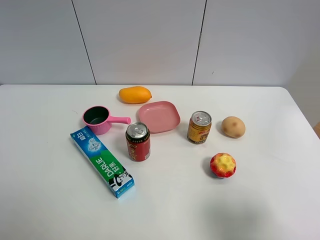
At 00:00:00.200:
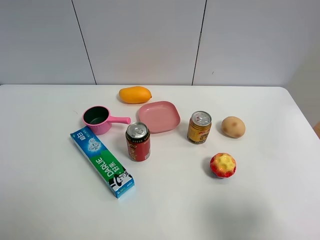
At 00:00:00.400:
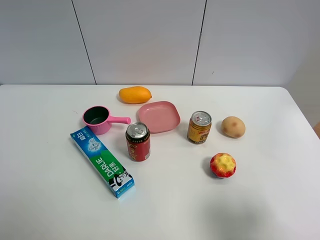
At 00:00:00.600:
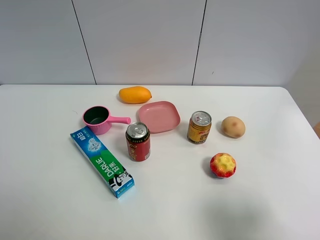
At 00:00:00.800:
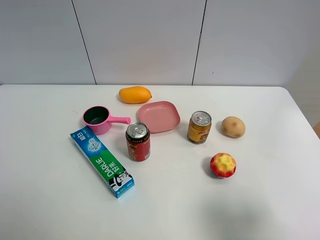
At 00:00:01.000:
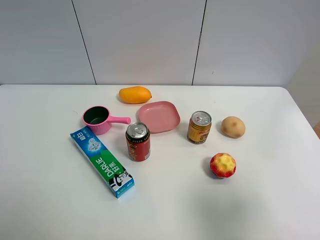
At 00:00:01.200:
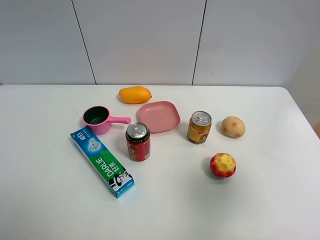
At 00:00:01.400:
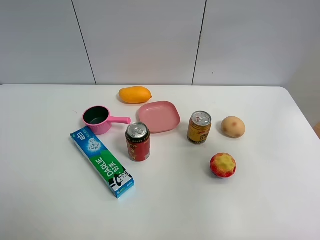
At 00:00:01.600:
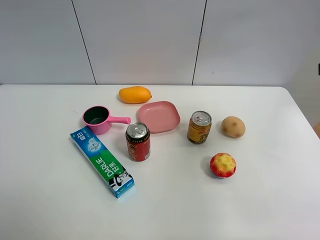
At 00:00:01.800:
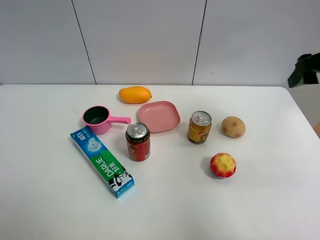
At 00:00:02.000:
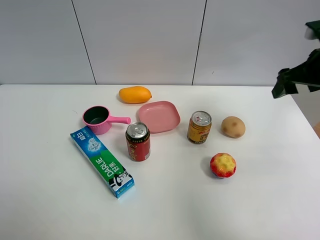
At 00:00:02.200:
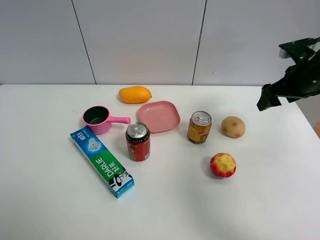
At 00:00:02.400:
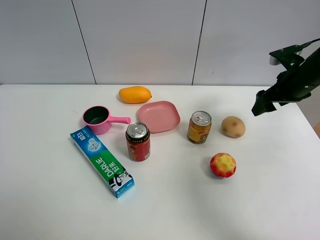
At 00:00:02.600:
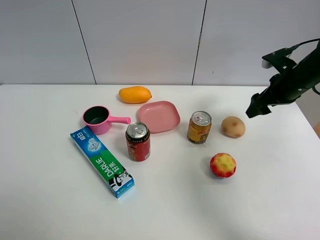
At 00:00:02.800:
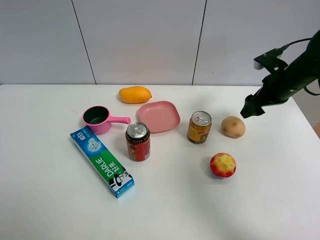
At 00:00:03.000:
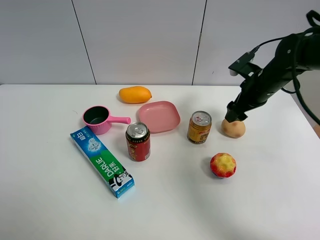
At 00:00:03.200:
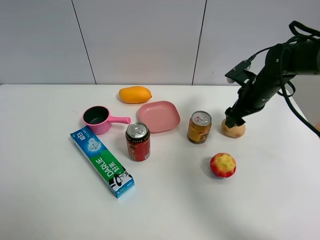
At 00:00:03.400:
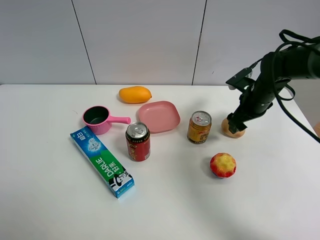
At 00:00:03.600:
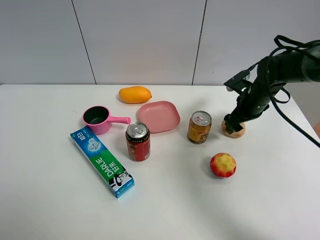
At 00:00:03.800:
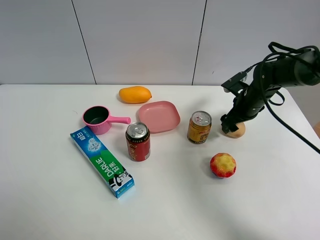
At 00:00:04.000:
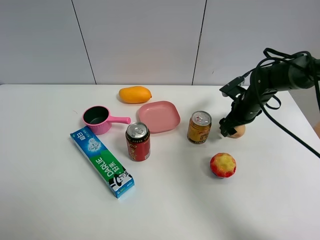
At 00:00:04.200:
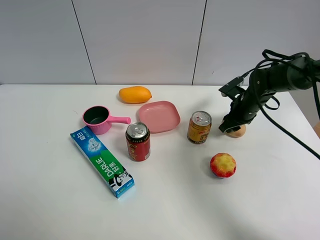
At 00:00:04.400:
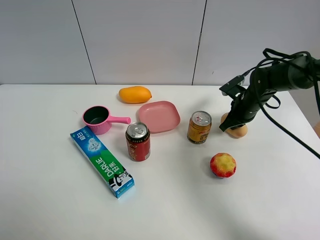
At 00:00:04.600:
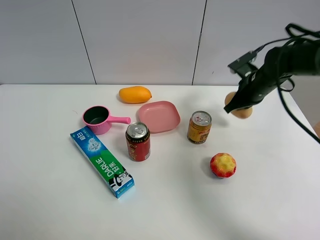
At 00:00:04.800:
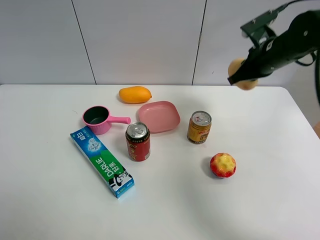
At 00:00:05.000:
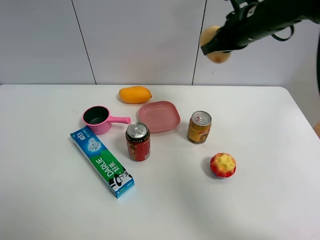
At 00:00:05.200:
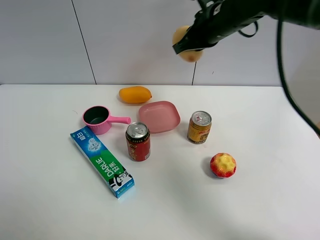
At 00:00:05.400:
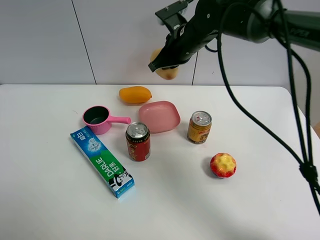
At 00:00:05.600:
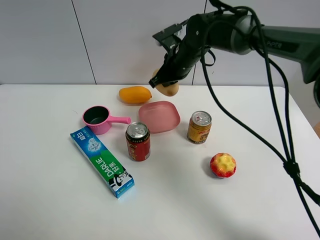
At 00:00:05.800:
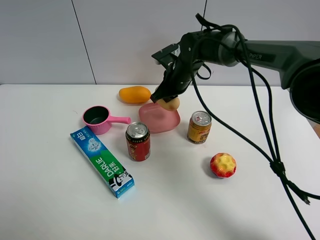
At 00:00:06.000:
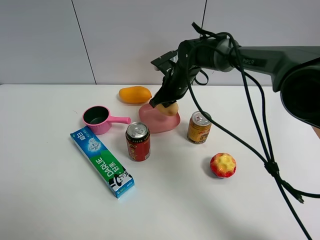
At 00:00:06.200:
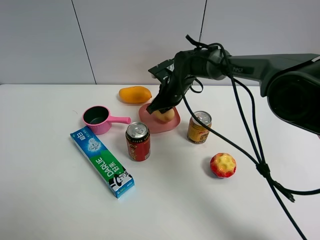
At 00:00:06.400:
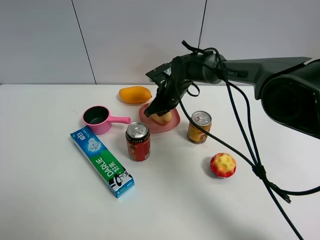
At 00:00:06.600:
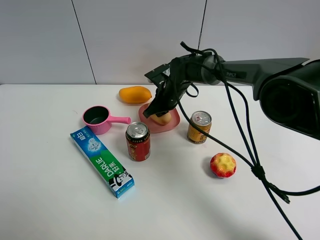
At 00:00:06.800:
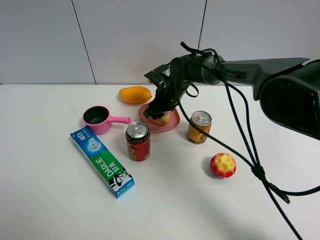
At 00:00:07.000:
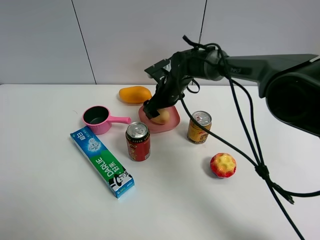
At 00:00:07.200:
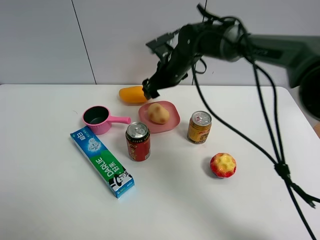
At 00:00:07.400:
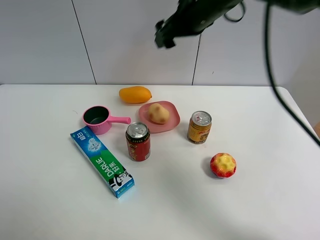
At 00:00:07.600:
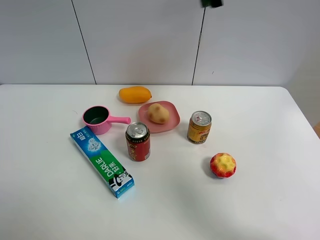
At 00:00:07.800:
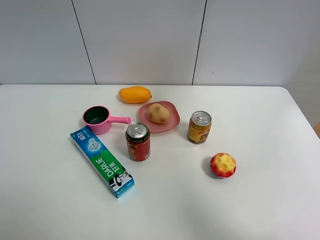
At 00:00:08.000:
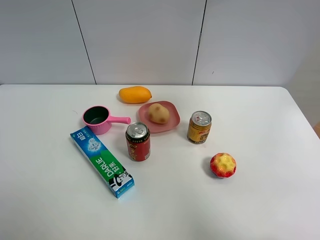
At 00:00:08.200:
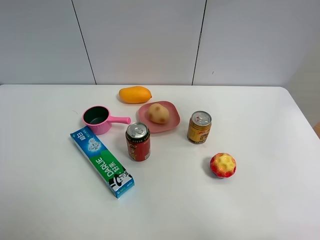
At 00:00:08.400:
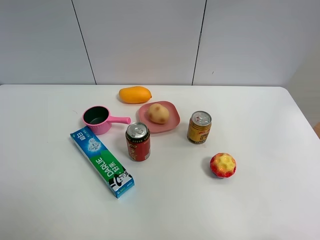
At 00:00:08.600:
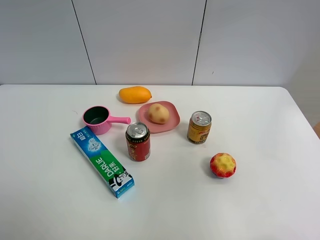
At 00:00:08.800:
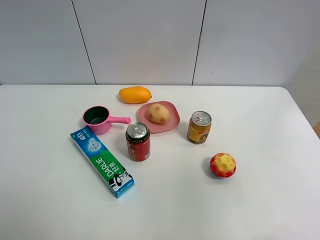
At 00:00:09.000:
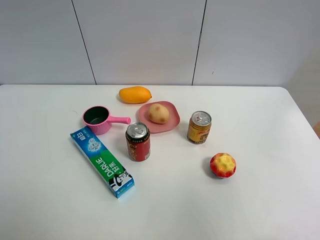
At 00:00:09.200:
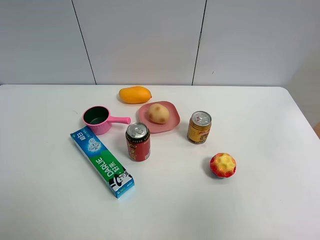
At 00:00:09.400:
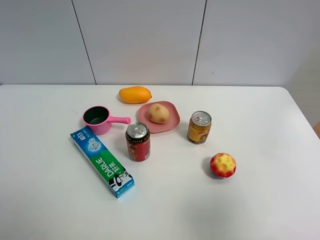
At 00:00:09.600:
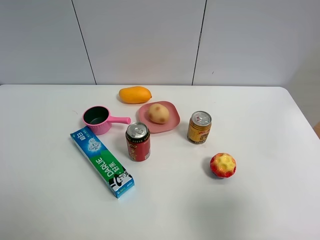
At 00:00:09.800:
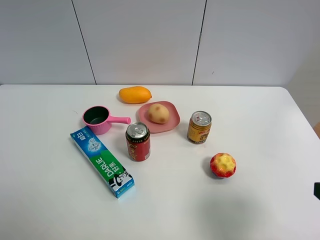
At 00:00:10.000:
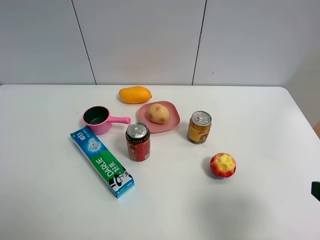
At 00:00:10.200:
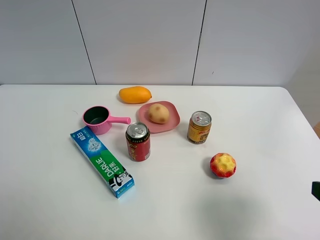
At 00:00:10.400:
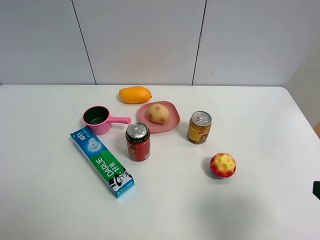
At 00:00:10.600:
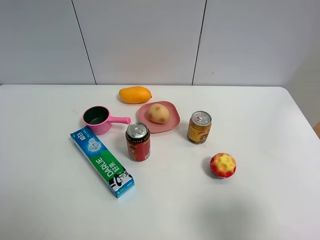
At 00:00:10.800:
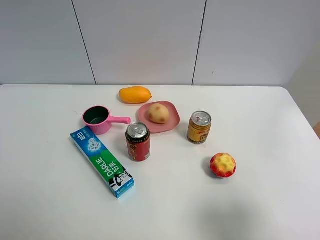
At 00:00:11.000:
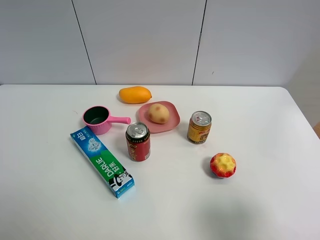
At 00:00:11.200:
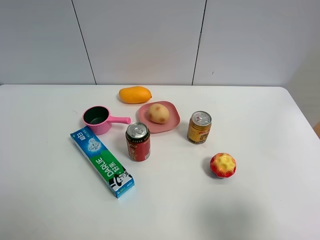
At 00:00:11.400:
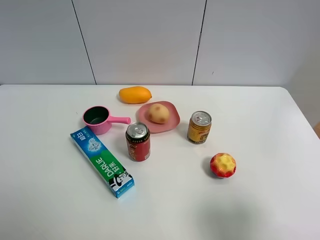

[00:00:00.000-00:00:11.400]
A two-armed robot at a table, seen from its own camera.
Task of the whole recording: the gripper move the object.
Step, 00:00:00.000 to 00:00:04.200: Grasp the egg yolk pastry with the right gripper.
Step, 00:00:04.400 to 00:00:07.000: Place the egg yolk pastry into the pink plate with the right gripper.
00:00:00.000 to 00:00:01.400: The right gripper goes roughly 20 cm forward and upward.
00:00:01.400 to 00:00:02.800: The right gripper moves forward and downward, roughly 30 cm.
00:00:02.800 to 00:00:04.200: The right gripper moves downward, about 10 cm, and closes up.
00:00:04.200 to 00:00:05.600: The right gripper shifts about 20 cm to the left and upward, and closes.
00:00:05.600 to 00:00:07.200: The right gripper goes downward and returns, about 10 cm each way, and opens.
00:00:07.200 to 00:00:08.600: The right gripper is displaced backward, upward and to the right by approximately 60 cm.
00:00:08.600 to 00:00:10.000: The right gripper goes roughly 25 cm downward.

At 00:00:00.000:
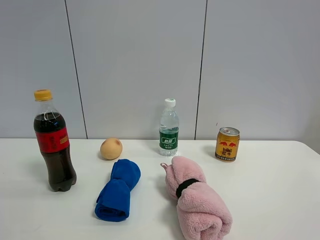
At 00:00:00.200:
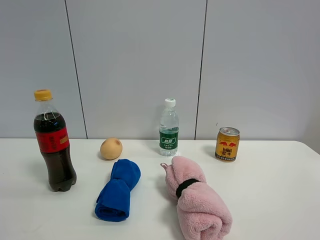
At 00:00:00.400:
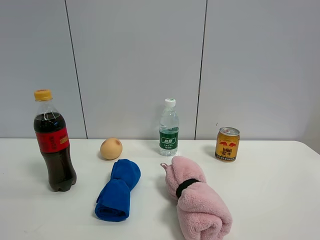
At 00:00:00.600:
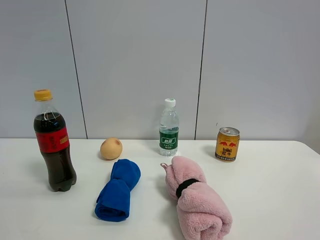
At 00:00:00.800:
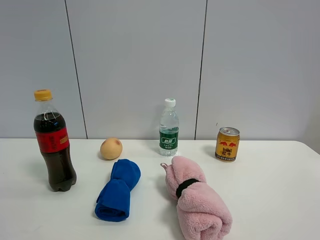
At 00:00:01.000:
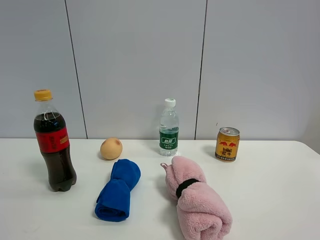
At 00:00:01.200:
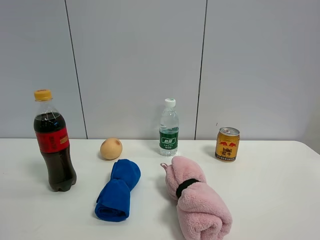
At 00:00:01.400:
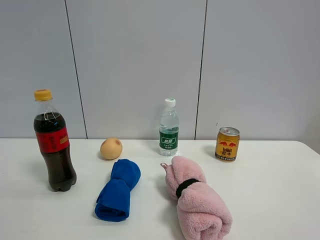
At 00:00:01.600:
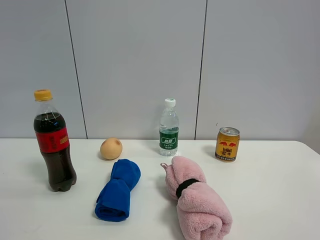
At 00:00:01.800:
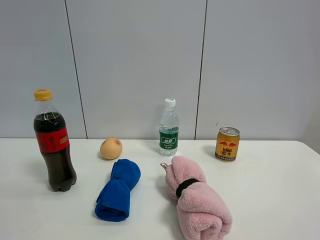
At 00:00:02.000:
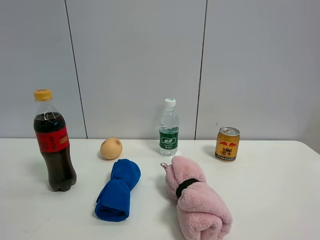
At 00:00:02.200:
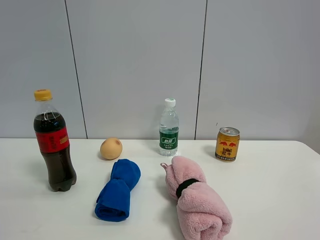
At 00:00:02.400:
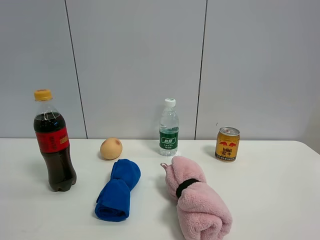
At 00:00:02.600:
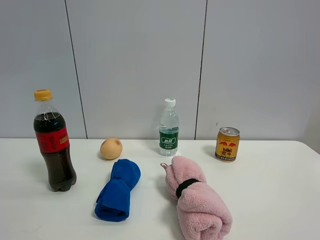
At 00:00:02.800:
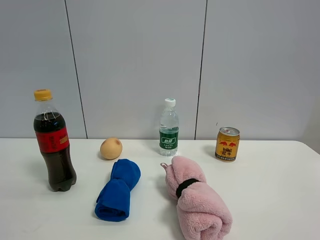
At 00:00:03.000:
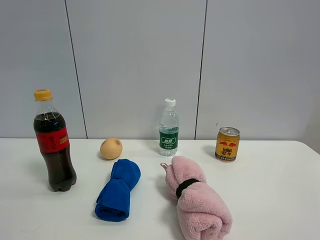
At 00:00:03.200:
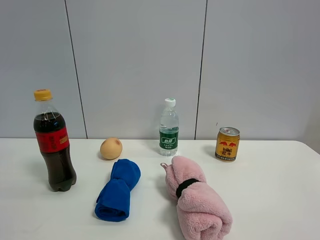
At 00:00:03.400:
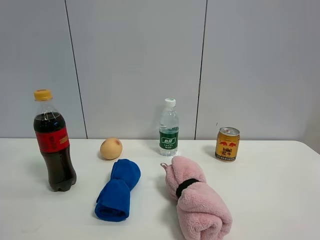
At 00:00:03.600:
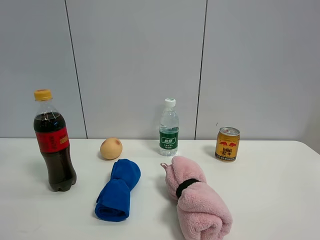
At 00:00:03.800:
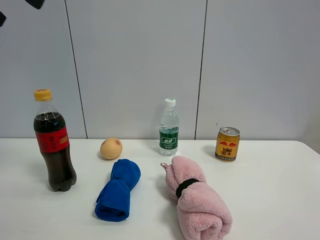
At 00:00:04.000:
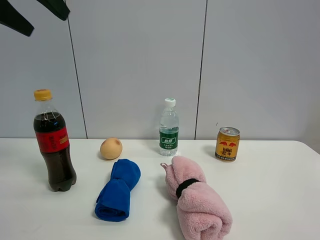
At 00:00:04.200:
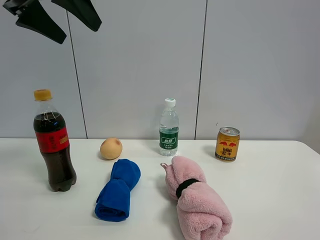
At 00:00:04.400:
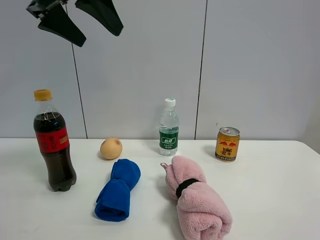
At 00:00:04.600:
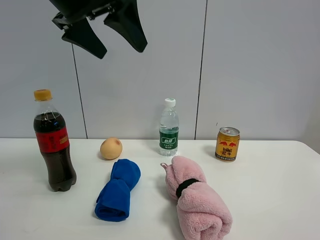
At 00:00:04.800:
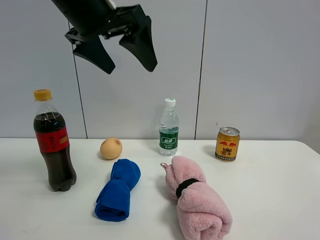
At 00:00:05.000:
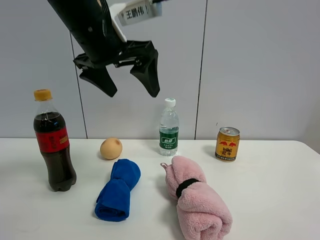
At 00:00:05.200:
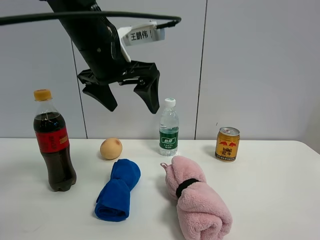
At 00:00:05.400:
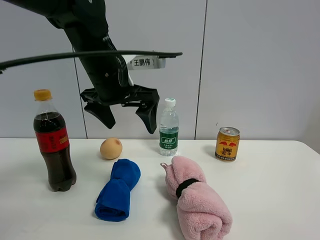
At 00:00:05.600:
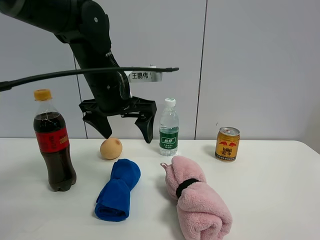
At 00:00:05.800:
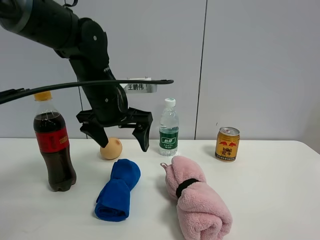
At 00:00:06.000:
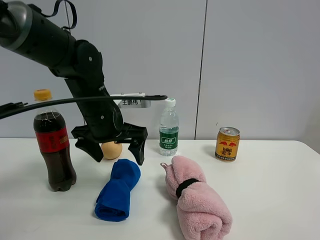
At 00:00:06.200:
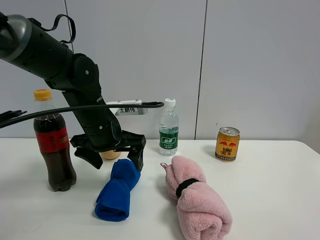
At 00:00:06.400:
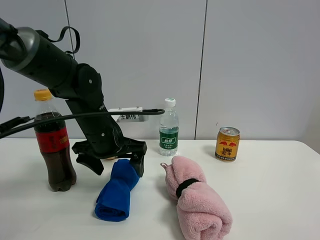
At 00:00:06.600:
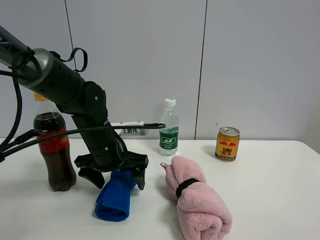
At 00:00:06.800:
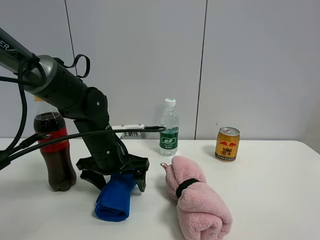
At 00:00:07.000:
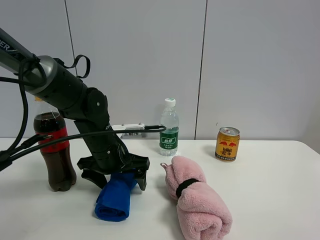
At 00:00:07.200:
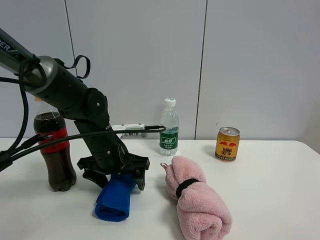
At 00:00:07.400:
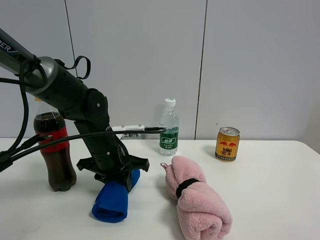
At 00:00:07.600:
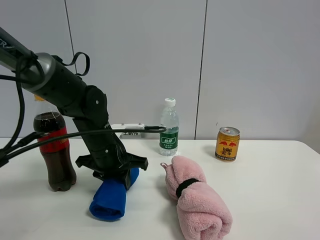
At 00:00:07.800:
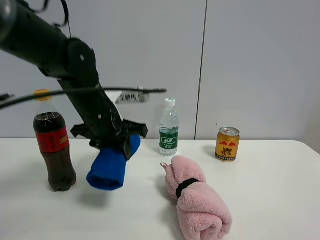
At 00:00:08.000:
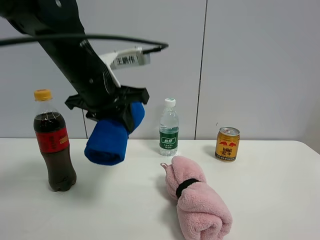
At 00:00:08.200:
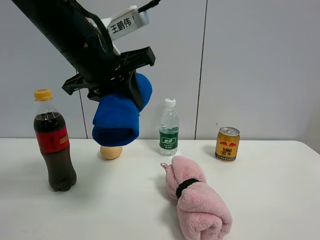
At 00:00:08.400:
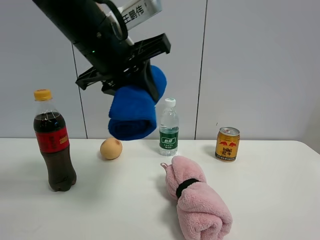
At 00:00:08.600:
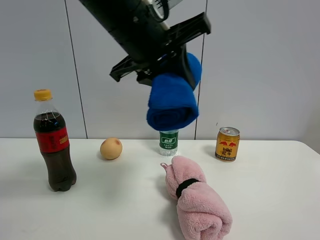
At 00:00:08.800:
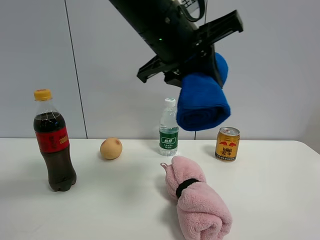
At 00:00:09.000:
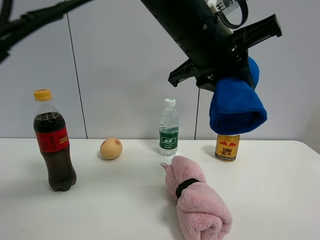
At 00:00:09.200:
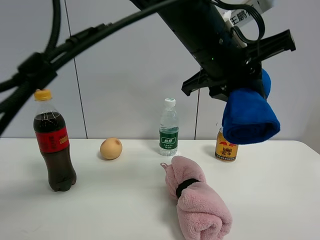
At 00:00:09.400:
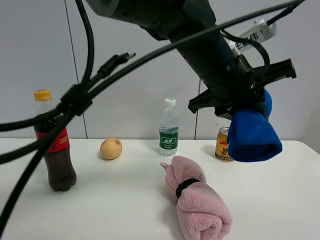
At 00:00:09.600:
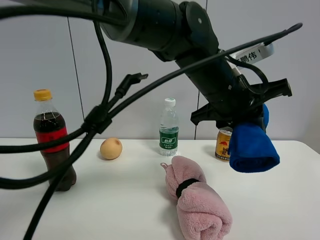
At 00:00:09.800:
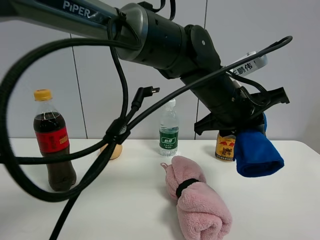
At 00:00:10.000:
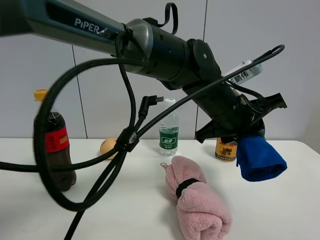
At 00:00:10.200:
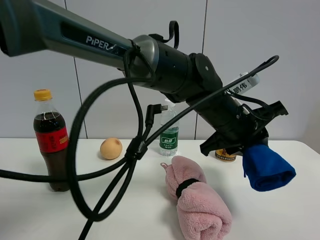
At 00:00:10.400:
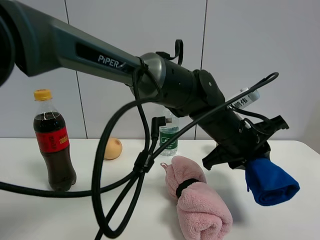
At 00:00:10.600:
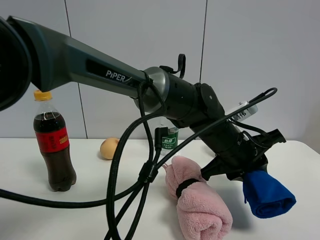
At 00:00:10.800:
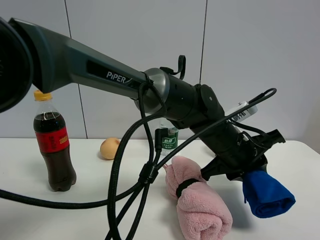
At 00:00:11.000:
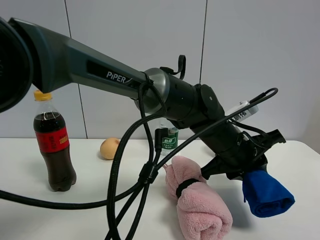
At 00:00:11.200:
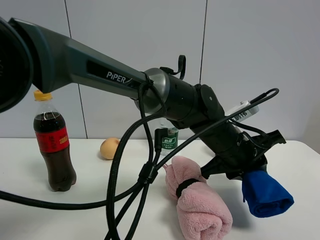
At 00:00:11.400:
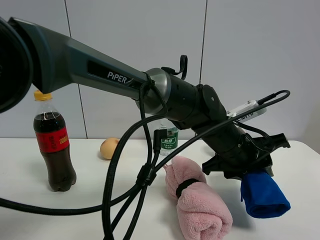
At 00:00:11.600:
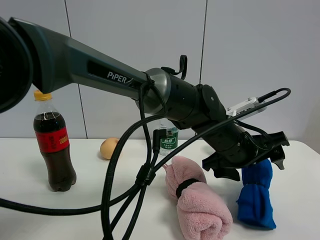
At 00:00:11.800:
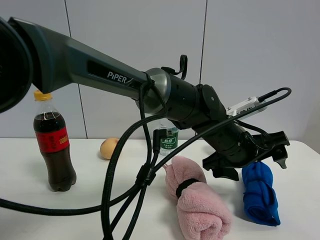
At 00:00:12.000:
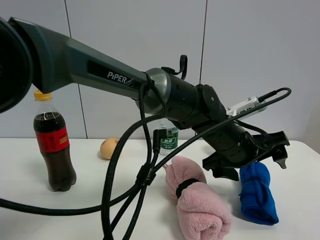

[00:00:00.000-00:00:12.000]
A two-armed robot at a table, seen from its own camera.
Task of the whole recording: the gripper move the object.
Step, 00:00:00.000 to 00:00:07.400: Grasp the blue towel with the left gripper.
Step, 00:00:07.600 to 00:00:11.800: Place the blue towel on the table with the left gripper.
00:00:03.000 to 00:00:04.400: The left gripper travels to the right, forward and downward by about 20 cm.
00:00:04.400 to 00:00:06.000: The left gripper moves downward, roughly 20 cm.
00:00:06.000 to 00:00:07.600: The left gripper shifts approximately 5 cm downward, and closes up.
00:00:07.600 to 00:00:09.000: The left gripper travels upward and to the right by approximately 25 cm.
00:00:09.000 to 00:00:10.400: The left gripper travels downward by roughly 15 cm.
00:00:10.400 to 00:00:12.000: The left gripper opens.
